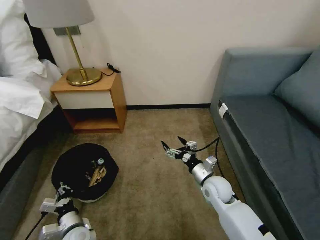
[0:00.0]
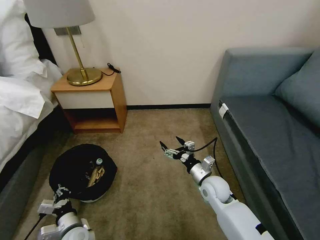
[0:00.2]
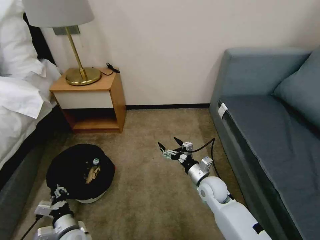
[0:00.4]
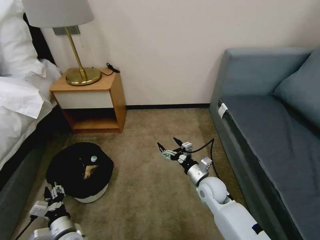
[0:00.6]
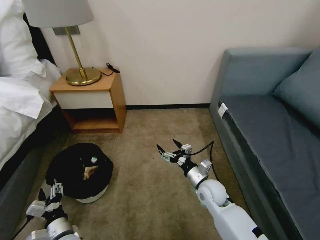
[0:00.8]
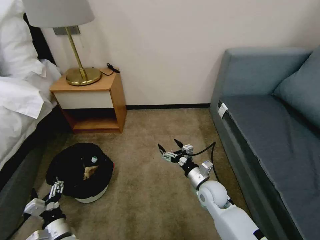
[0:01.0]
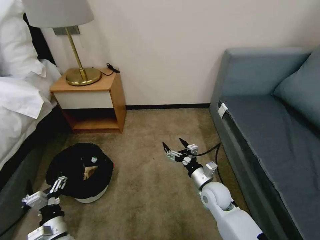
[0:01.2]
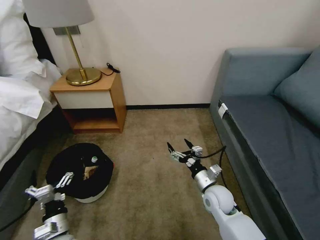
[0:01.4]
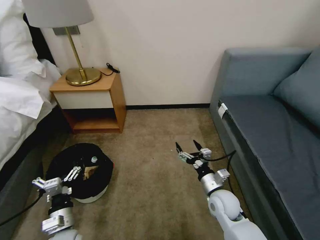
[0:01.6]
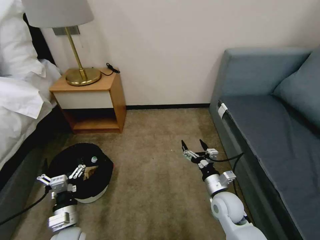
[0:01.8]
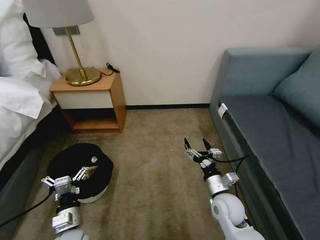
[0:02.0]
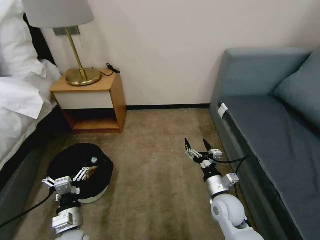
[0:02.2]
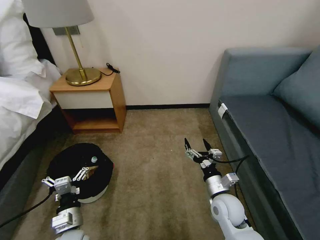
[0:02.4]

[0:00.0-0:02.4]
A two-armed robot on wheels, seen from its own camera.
Task of the whole recording: Pick up the trash bin, then pick up the garbage on the floor and place it into the trash bin.
0:00.0 to 0:01.2: The left gripper opens its fingers.
0:01.2 to 0:02.4: The right gripper moves roughly 5 cm, while the left gripper changes place by roughly 5 cm.

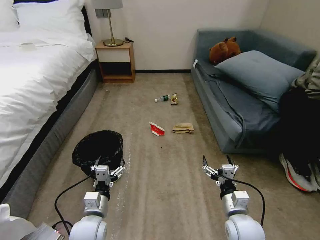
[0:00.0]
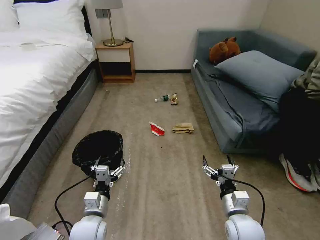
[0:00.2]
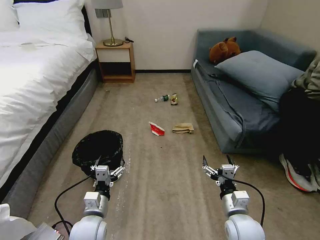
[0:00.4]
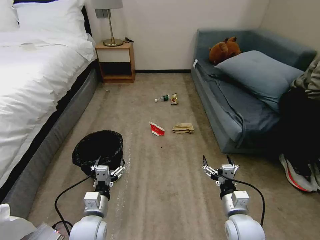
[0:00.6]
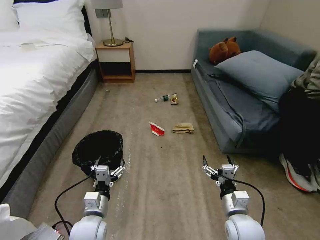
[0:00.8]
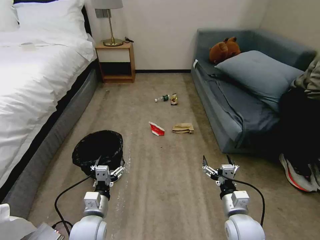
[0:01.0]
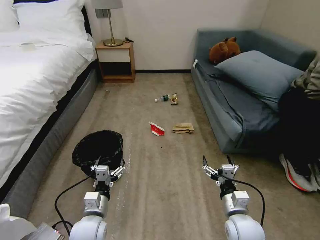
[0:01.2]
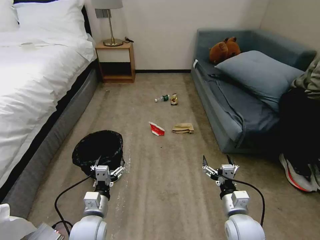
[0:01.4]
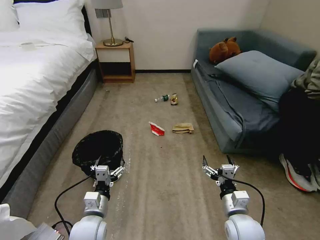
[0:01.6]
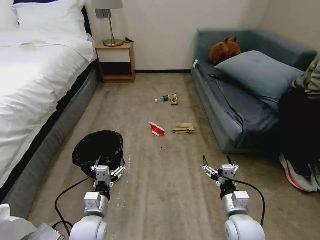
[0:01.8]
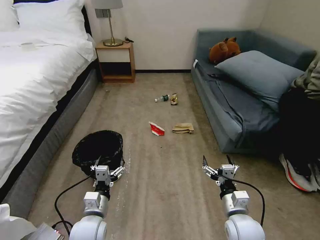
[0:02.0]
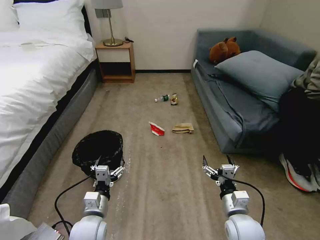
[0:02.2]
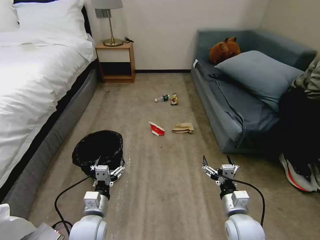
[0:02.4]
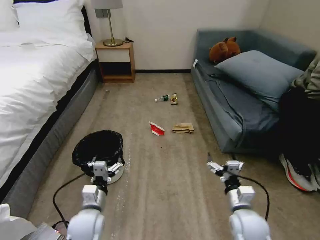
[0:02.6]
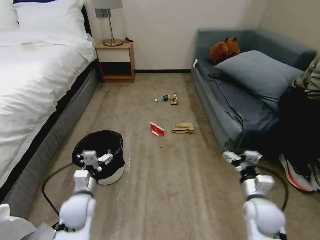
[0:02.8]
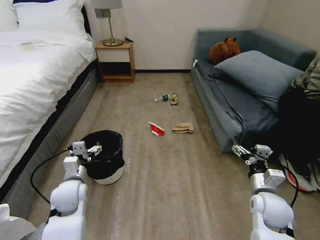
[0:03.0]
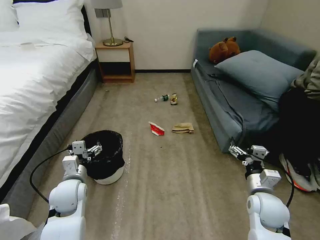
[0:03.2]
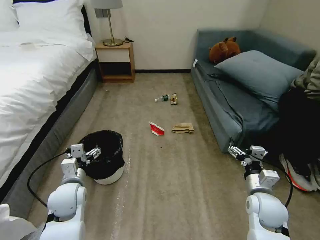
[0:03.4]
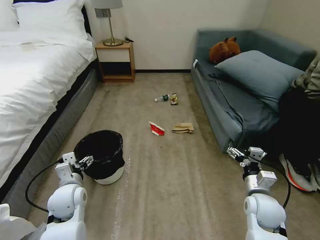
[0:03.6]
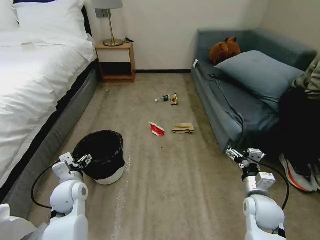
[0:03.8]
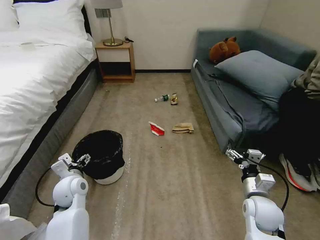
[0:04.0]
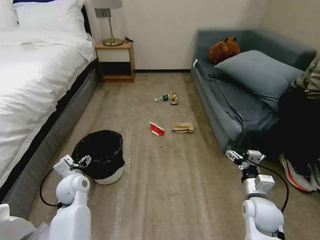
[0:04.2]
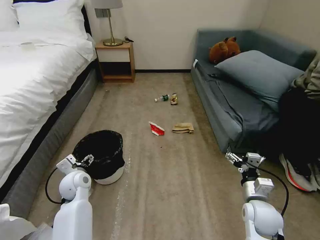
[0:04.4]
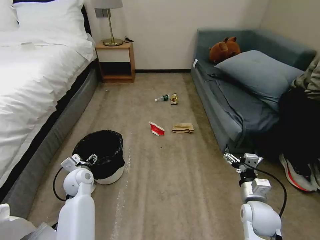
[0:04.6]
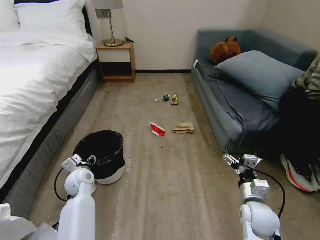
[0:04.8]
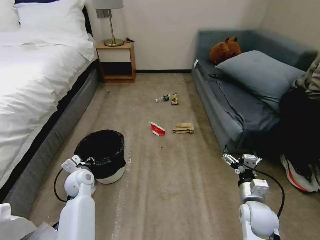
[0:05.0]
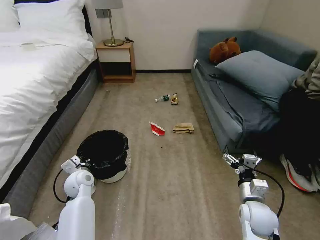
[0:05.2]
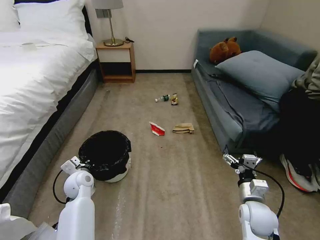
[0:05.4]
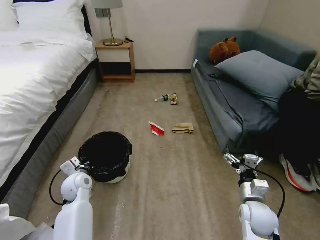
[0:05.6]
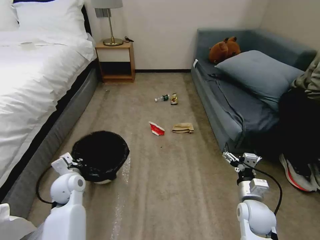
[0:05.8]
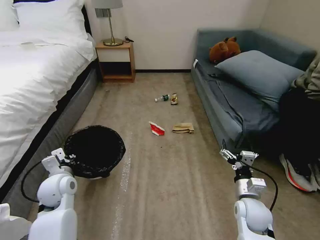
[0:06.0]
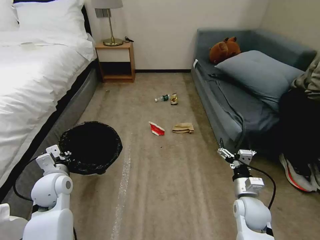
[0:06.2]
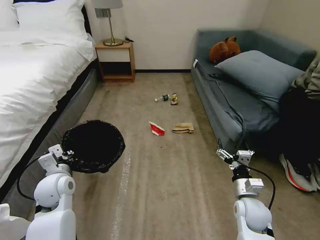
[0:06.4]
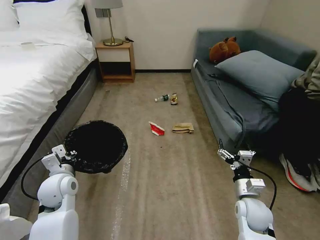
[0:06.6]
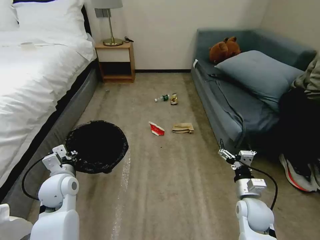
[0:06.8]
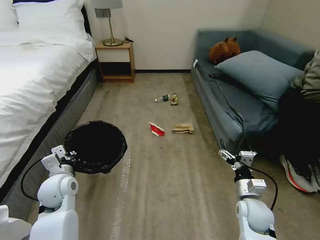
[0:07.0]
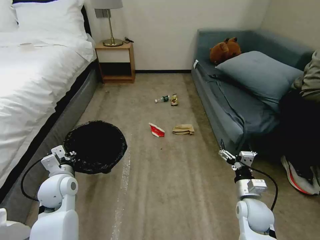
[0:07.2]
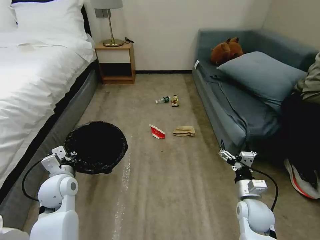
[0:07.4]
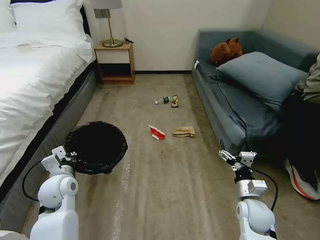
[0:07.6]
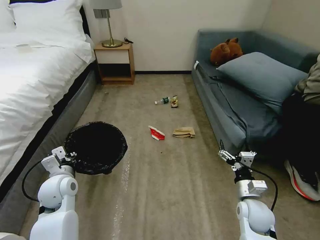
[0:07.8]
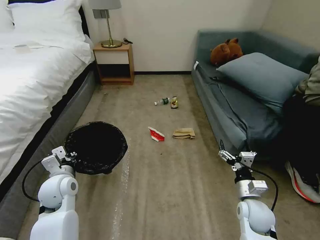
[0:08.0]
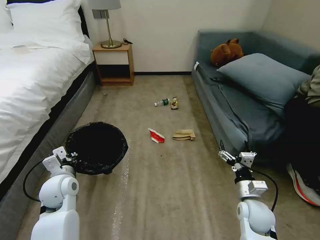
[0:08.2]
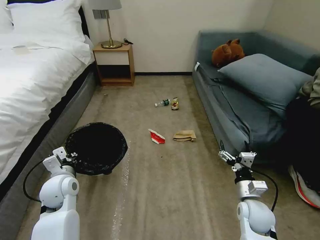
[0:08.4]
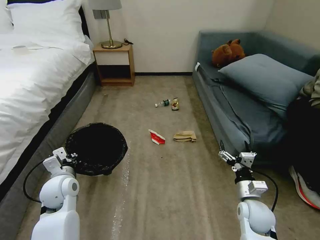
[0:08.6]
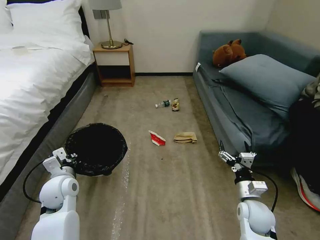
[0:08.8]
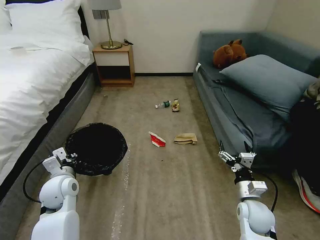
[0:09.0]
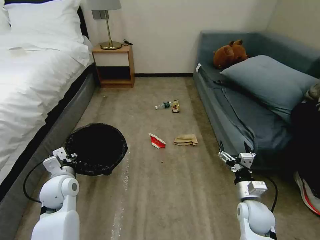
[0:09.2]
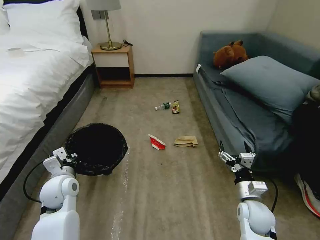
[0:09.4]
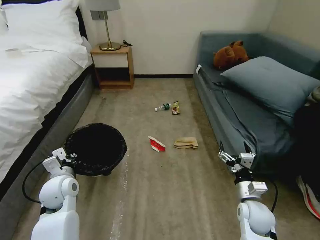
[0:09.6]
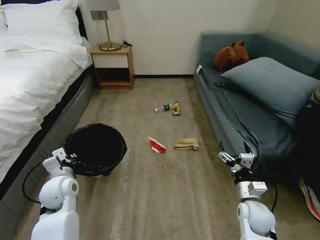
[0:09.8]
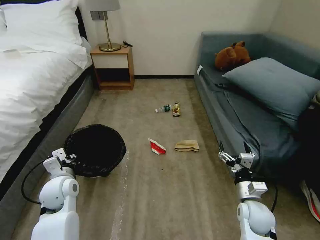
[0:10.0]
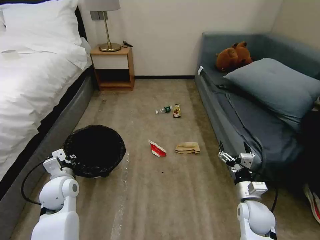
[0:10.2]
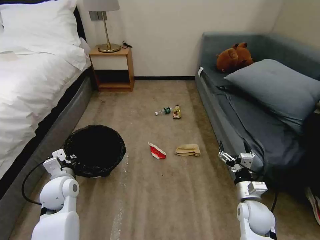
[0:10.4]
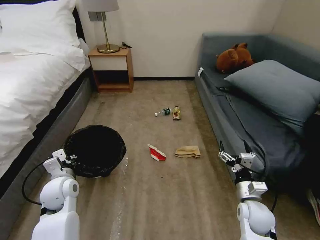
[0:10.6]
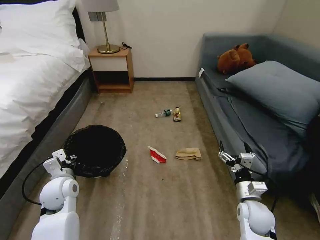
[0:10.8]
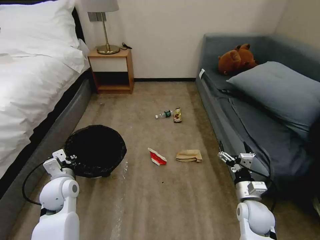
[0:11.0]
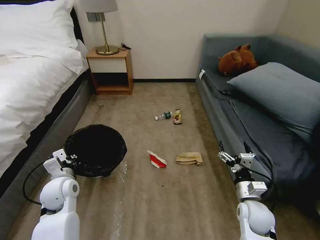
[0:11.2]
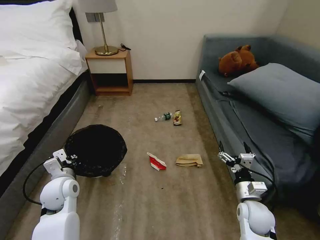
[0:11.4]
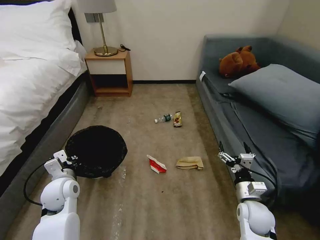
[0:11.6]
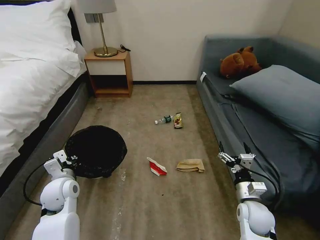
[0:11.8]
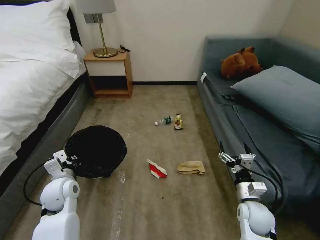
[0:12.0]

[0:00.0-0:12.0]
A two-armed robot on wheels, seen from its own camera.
Task of the whole recording: Pick up the trash bin, then pick up the garbage on the floor and place it into the trash bin.
0:01.6 to 0:03.0: The right gripper goes some 10 cm to the right; the left gripper shifts about 15 cm forward, to the left and upward.
0:03.0 to 0:04.4: The left gripper ends up approximately 5 cm from where it was.
0:04.4 to 0:06.0: The left gripper changes place by approximately 5 cm, and closes its fingers.
0:06.0 to 0:07.6: The grippers move only a little.
0:07.6 to 0:10.4: Both grippers stay about where they are.

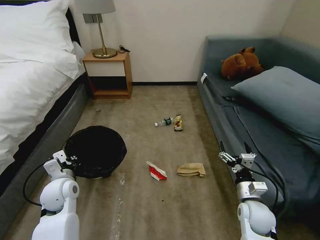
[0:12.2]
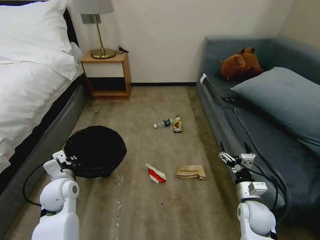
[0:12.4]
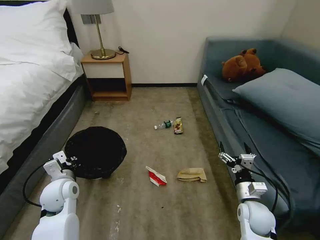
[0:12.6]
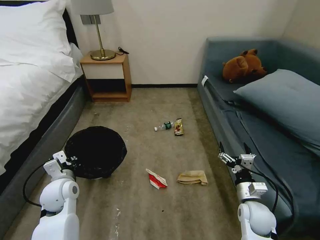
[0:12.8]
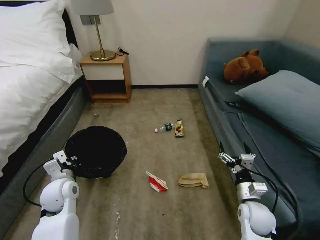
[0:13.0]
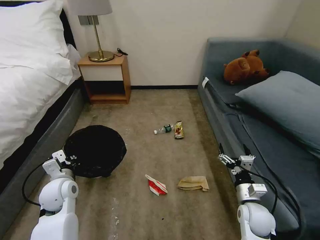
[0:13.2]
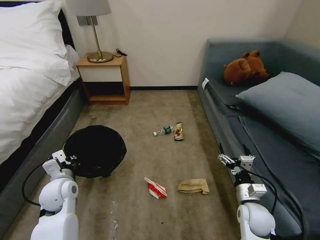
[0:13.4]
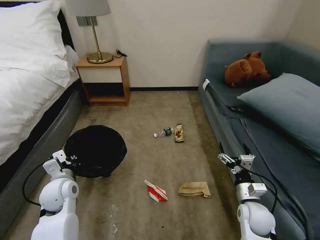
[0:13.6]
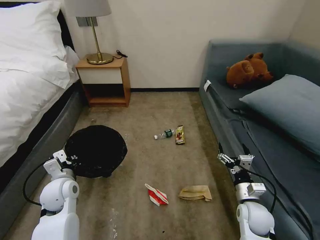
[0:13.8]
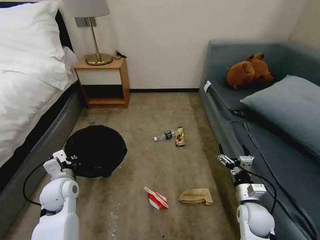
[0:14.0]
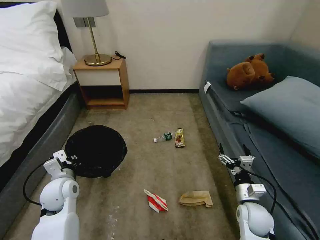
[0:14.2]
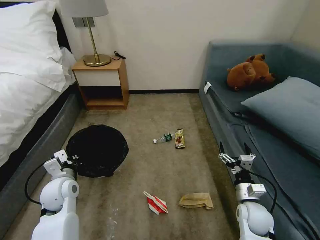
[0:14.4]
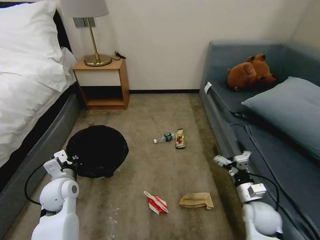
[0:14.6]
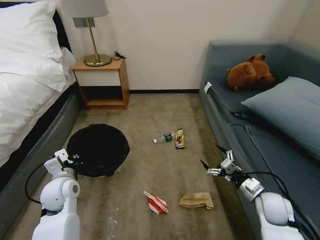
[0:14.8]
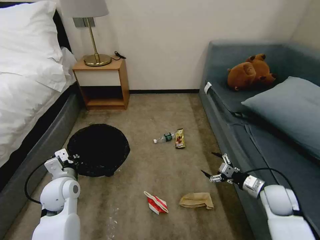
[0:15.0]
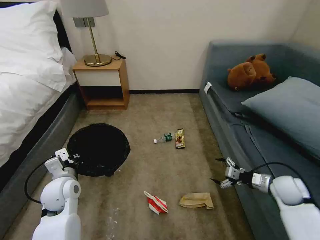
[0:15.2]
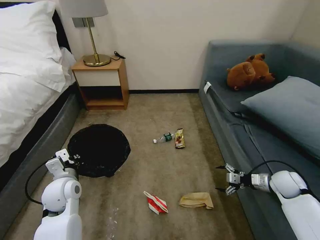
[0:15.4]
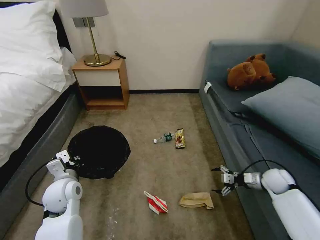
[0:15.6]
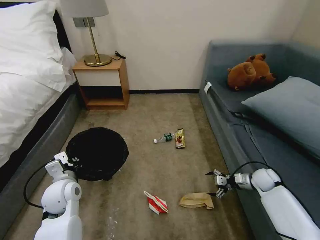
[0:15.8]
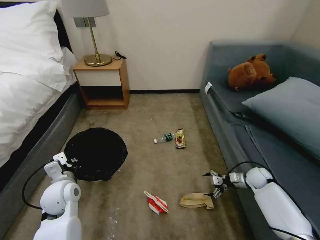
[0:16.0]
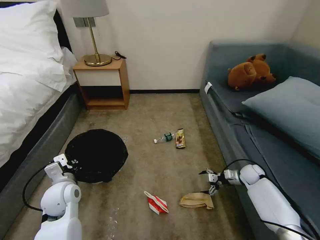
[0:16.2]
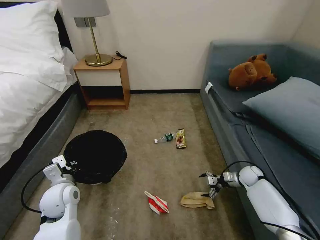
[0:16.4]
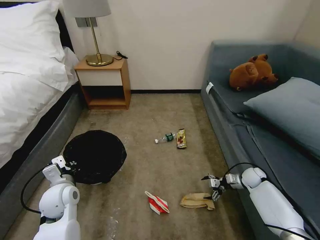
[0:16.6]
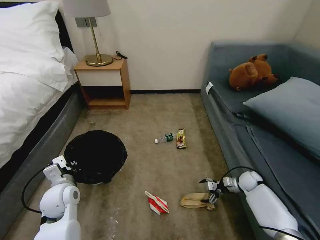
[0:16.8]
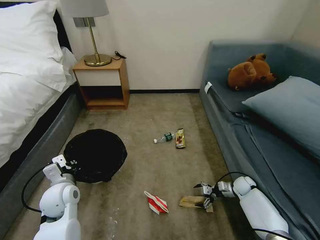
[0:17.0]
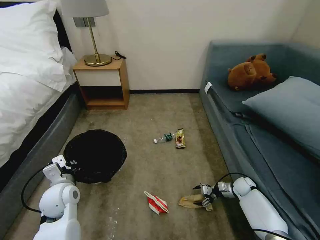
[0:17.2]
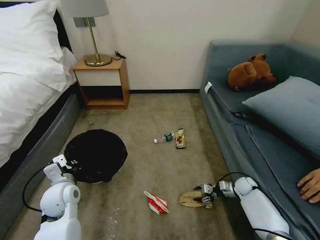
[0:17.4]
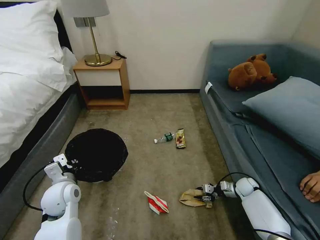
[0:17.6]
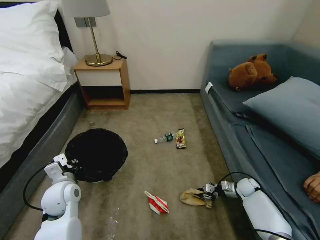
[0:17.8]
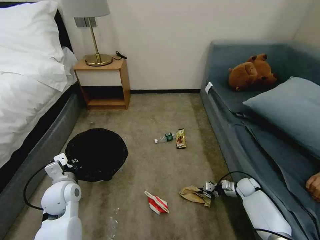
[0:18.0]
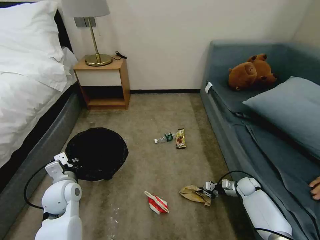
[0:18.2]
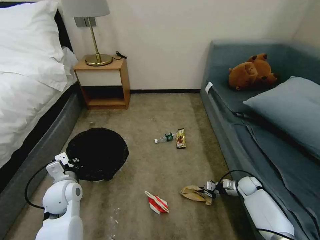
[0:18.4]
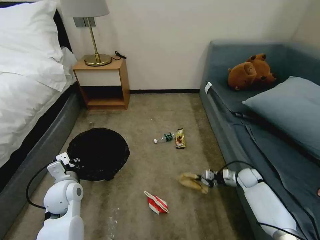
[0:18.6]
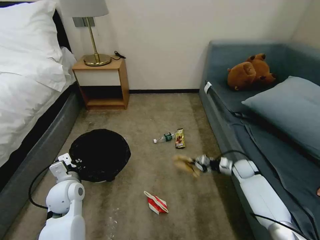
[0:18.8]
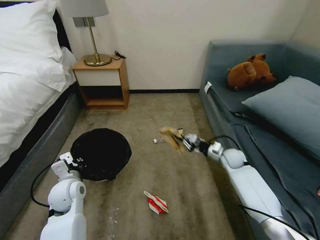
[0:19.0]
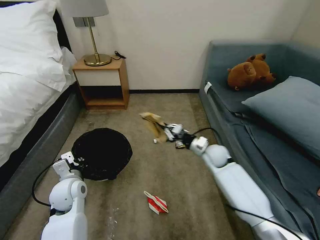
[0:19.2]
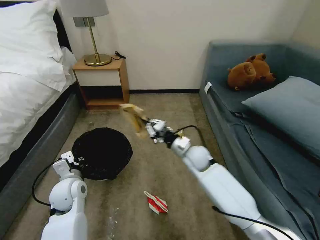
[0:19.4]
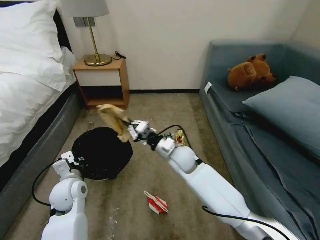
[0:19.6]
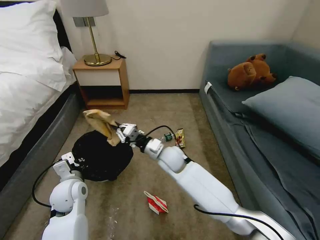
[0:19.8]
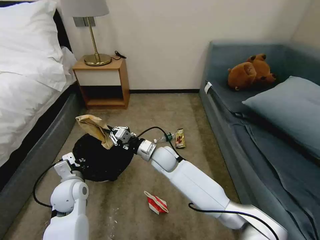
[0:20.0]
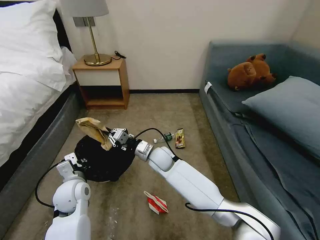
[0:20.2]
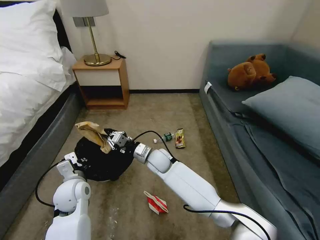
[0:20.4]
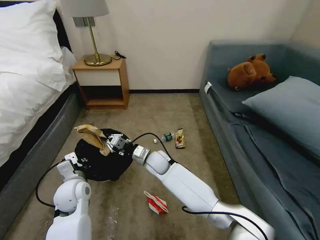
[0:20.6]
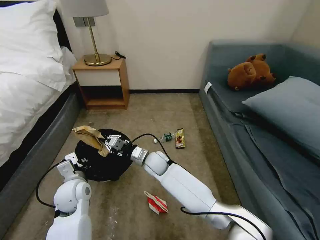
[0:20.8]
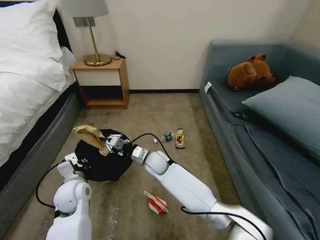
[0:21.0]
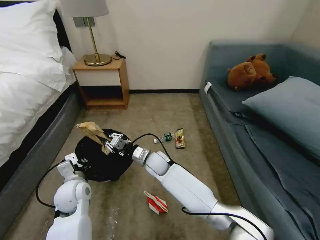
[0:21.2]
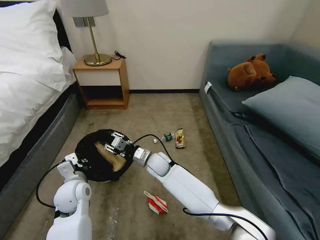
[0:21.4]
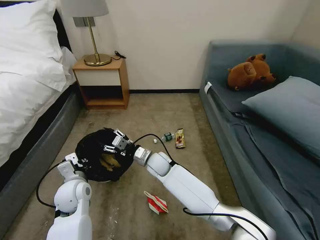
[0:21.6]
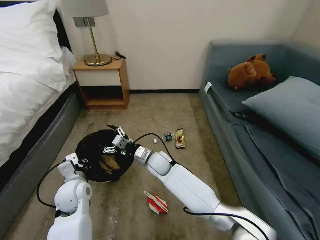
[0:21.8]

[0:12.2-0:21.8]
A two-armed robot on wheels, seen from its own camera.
Task of the whole recording: Pick up the trash bin, then pick up the garbage on the floor and place it into the trash bin.
0:12.2 to 0:13.8: Both grippers stay put.
0:13.8 to 0:15.4: The right gripper moves to the right and forward, about 20 cm.
0:15.4 to 0:17.0: The right gripper is displaced downward and forward by approximately 15 cm.
0:17.0 to 0:18.6: The right gripper closes its fingers.
0:18.6 to 0:20.2: The right gripper is displaced to the left by about 40 cm.
0:20.2 to 0:21.8: The right gripper opens.
